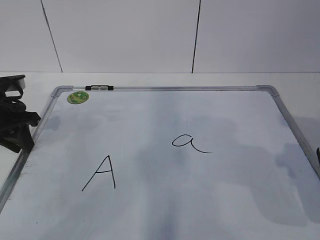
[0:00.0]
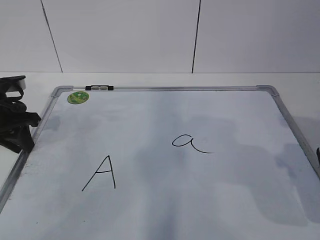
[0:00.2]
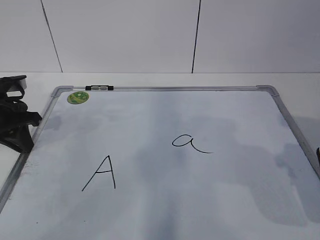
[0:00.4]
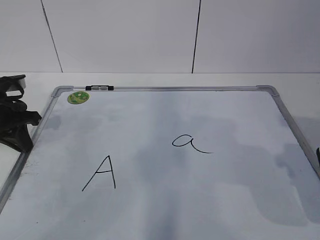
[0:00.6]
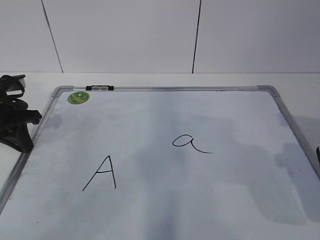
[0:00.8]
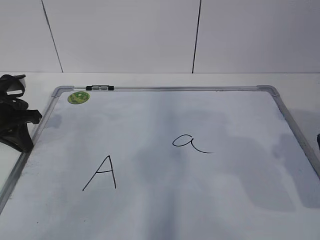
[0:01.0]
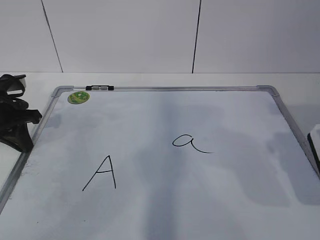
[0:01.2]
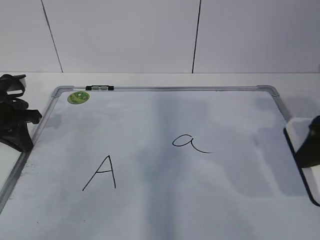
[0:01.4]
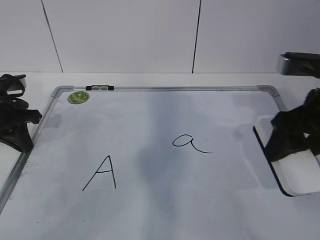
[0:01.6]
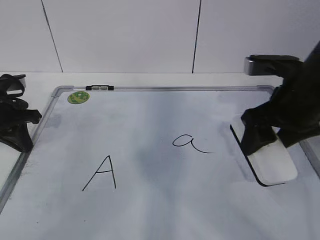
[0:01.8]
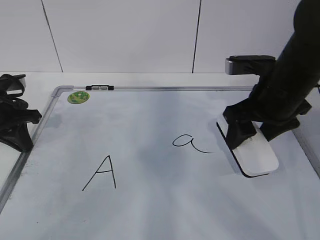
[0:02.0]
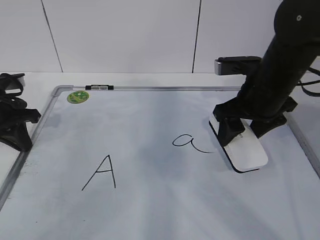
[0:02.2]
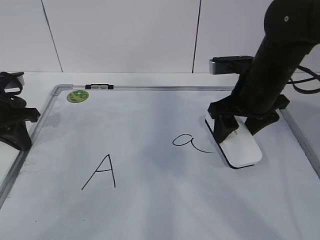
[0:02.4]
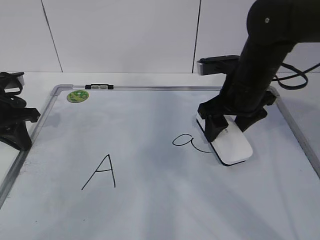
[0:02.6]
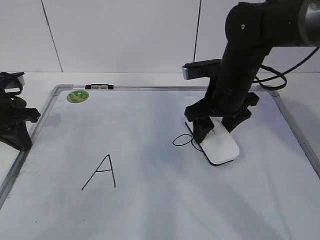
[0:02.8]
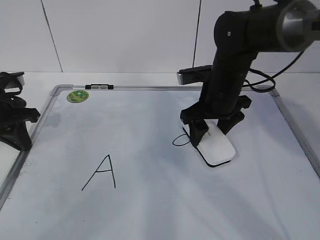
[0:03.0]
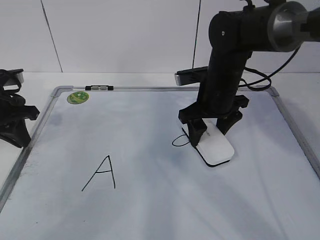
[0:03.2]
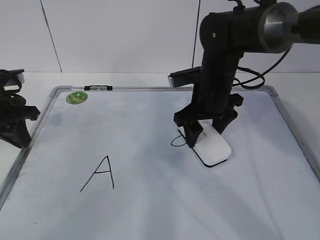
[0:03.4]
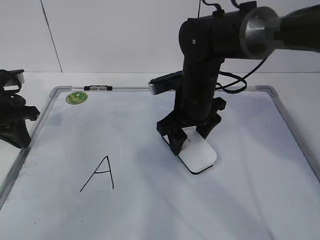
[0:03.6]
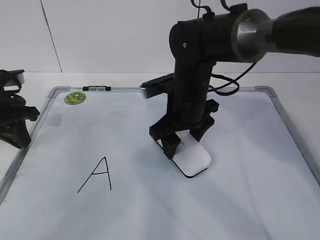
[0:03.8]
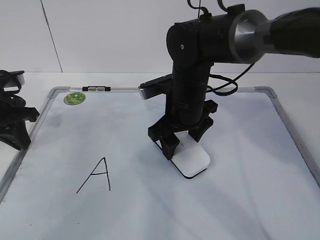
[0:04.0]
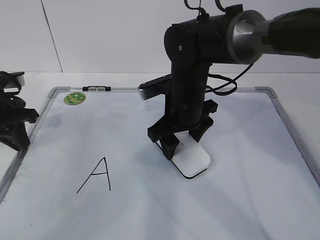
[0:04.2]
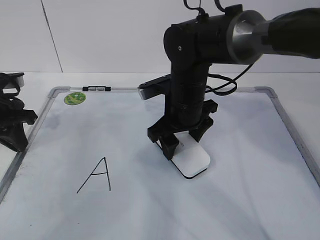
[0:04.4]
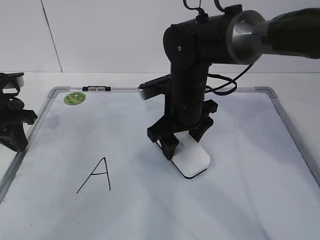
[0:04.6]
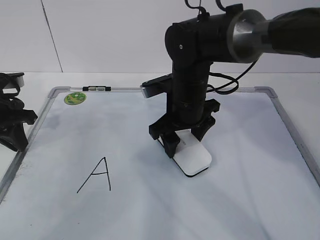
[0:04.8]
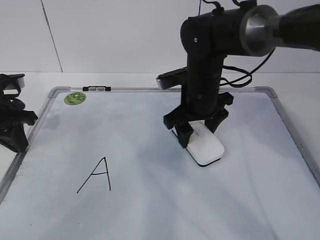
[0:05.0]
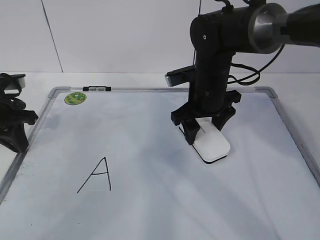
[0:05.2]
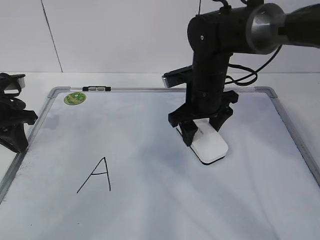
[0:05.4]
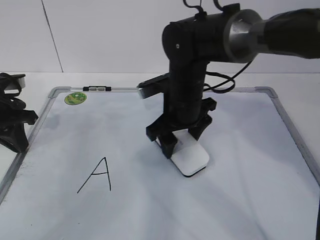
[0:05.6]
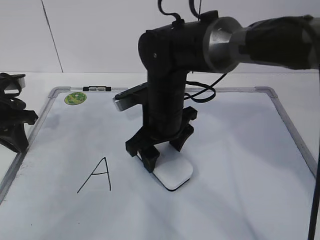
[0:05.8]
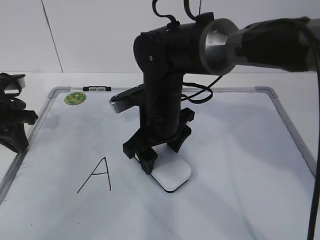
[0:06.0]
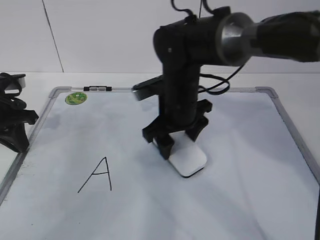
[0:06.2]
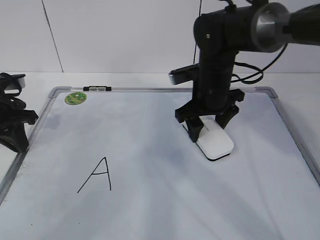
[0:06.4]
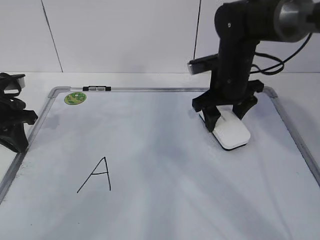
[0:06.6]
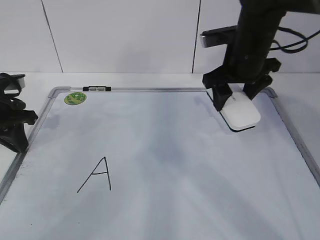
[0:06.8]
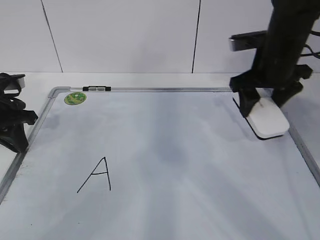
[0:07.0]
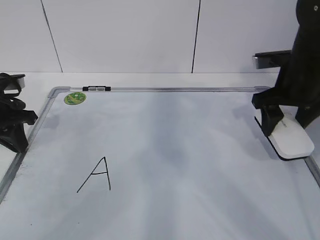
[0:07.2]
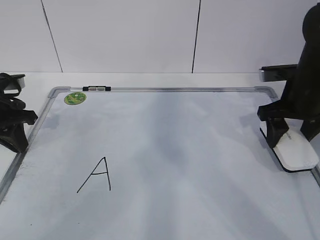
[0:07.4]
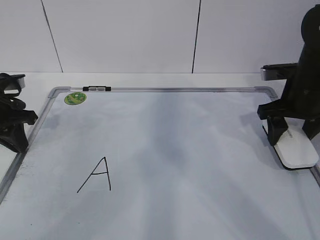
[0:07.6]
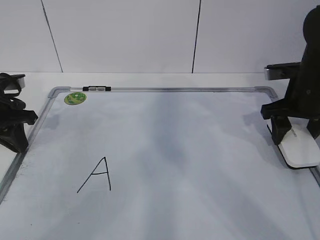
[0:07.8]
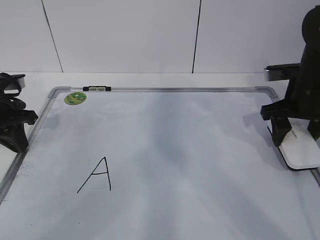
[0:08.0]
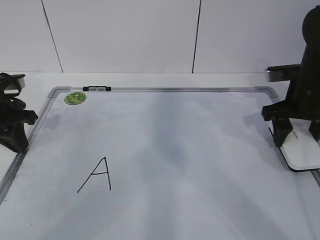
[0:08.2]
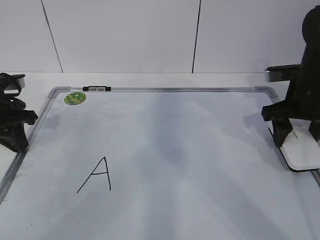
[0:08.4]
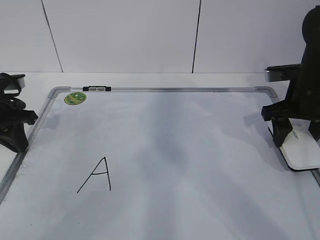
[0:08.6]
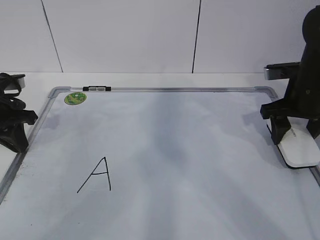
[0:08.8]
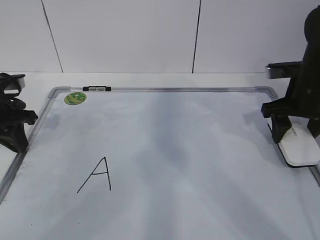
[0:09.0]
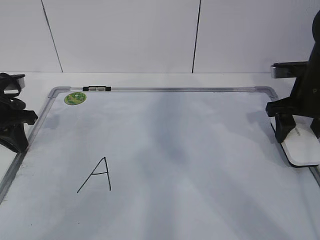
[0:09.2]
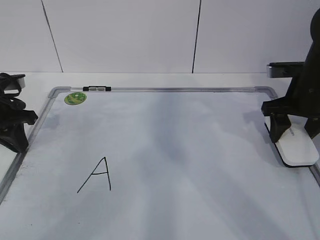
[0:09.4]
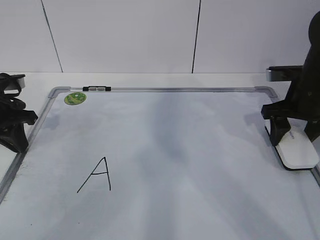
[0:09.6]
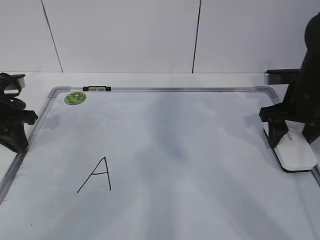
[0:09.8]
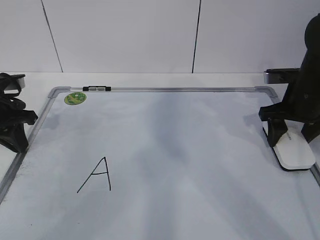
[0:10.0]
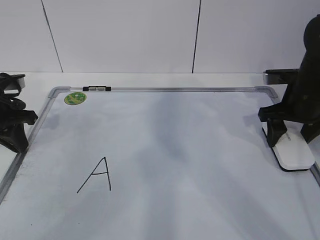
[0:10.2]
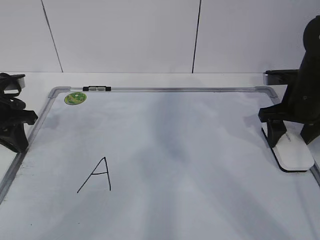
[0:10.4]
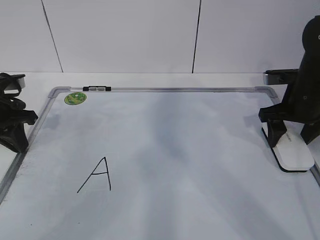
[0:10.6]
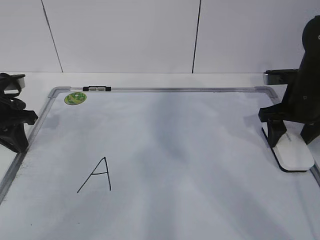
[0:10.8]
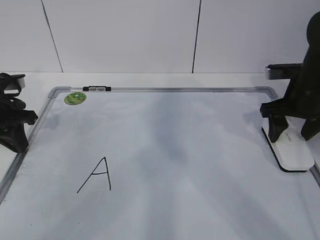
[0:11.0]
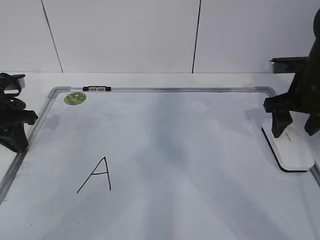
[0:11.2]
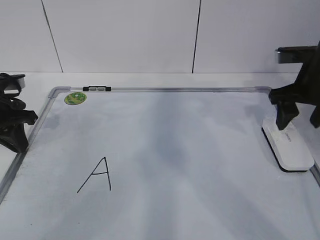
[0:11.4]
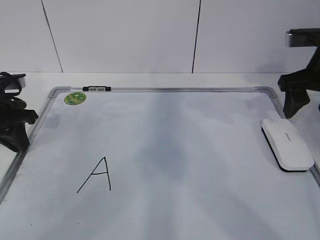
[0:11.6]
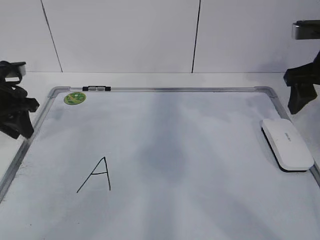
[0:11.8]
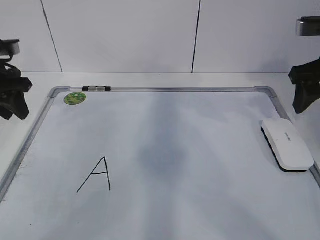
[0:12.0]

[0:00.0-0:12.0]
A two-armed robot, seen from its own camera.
Task of the whole recording: pick up the eraser on the blackboard and erase the letter "a".
Step, 0:00.0 to 0:02.8: Erase the letter a with your right hand.
Step, 0:03.0 to 0:06.4: Put down the eraser with your right hand.
0:00.0 to 0:01.6: The right gripper goes roughly 10 cm forward and to the left; the left gripper closes.
0:01.6 to 0:03.0: The right gripper shifts some 20 cm forward, to the left and downward.
0:03.0 to 0:04.4: The right gripper shifts approximately 5 cm to the left.
0:04.4 to 0:06.0: There are only small adjustments of the grippers.
0:06.0 to 0:07.6: The right gripper shifts some 25 cm to the right.
0:07.6 to 0:09.0: Neither gripper changes place.
0:09.0 to 0:10.4: There are only small adjustments of the grippers.
0:10.4 to 0:12.0: Both grippers travel together upward, roughly 10 cm. The left gripper opens.

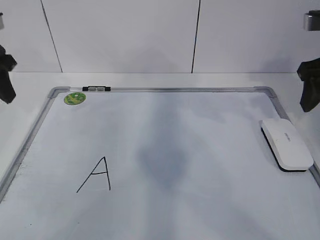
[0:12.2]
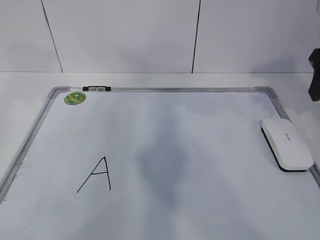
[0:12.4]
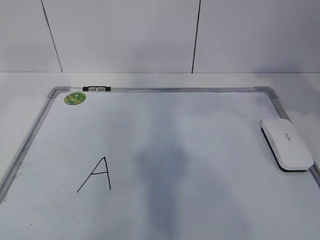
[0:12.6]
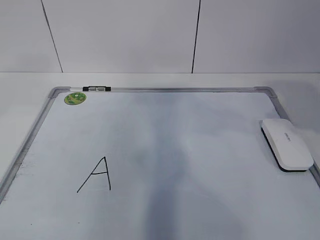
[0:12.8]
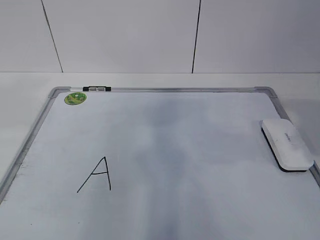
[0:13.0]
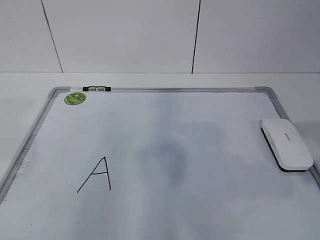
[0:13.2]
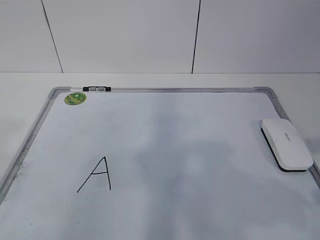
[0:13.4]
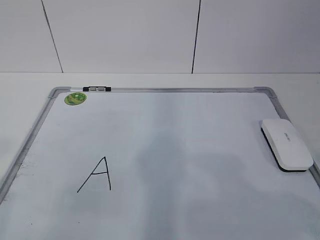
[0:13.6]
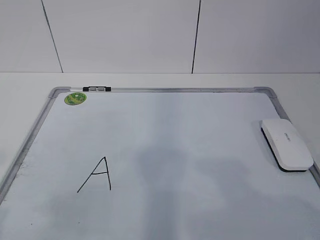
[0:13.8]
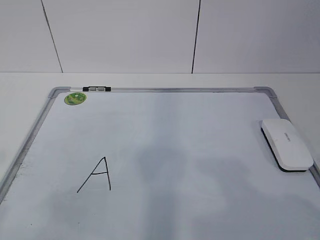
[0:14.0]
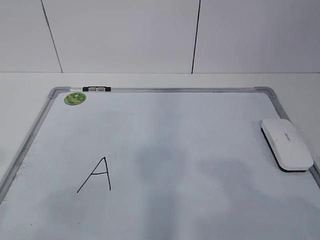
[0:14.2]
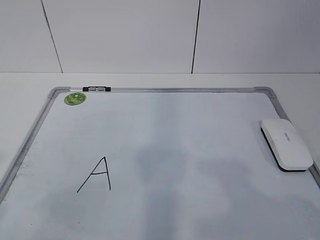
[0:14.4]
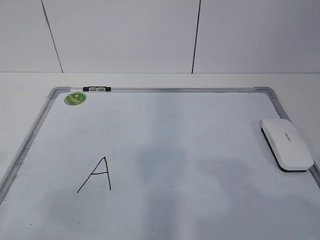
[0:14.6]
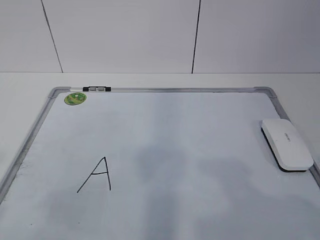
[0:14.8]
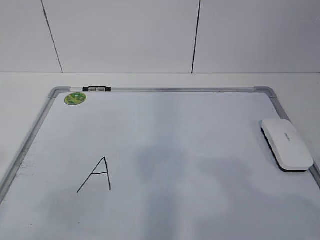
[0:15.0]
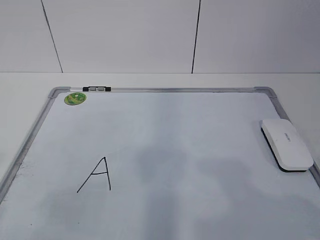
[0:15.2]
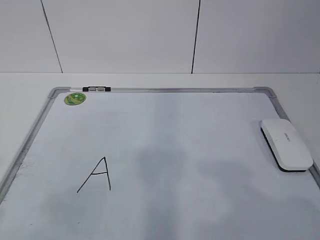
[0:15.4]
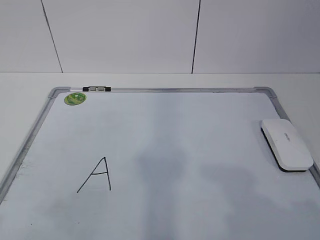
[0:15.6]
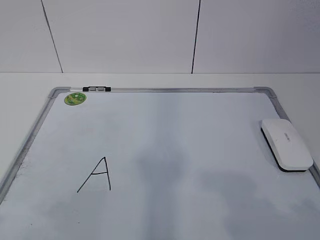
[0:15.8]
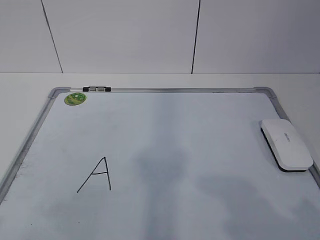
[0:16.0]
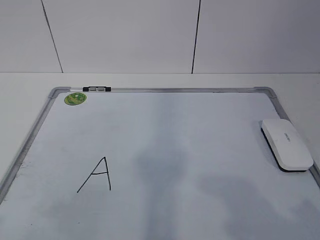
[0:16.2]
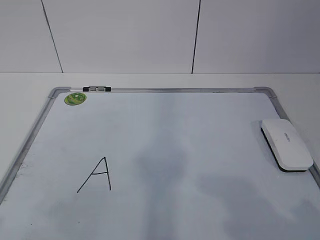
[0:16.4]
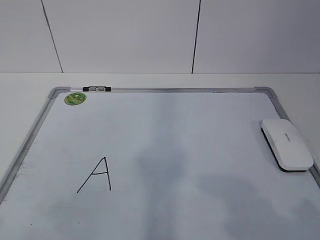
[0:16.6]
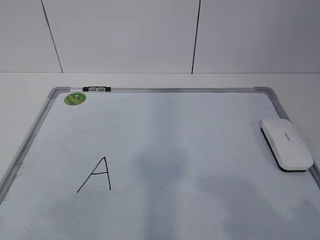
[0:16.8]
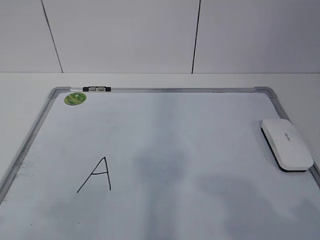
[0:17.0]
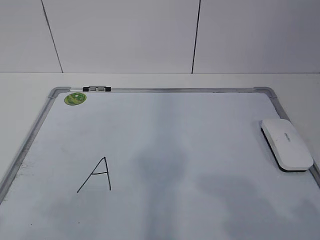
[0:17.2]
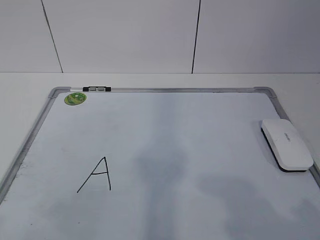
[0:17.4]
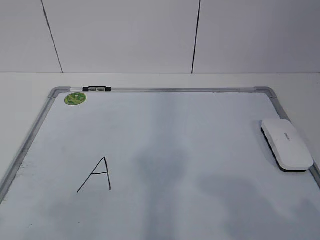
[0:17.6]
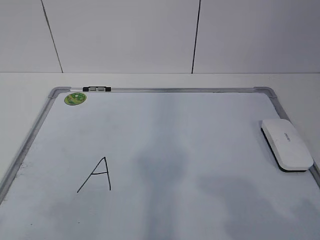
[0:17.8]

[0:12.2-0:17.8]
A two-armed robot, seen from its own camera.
Task of the whole recording: pick up the eraser on the blackboard and erase the letter "a".
0:12.2 to 0:13.6: Both grippers travel together backward, about 30 cm.
0:16.4 to 0:17.8: Both grippers stay put.
